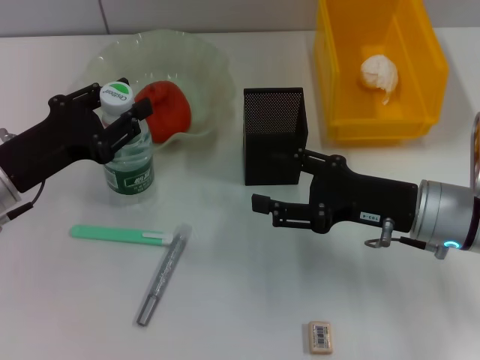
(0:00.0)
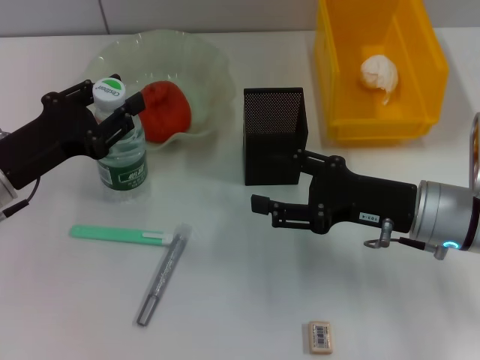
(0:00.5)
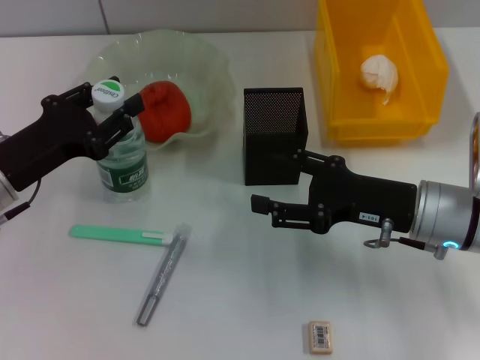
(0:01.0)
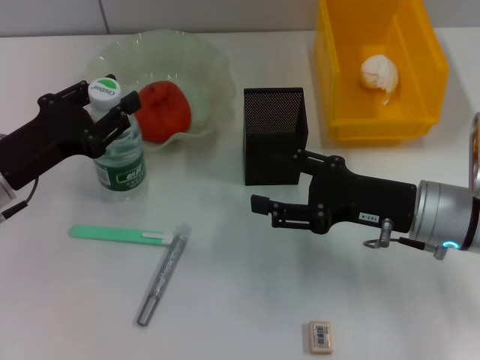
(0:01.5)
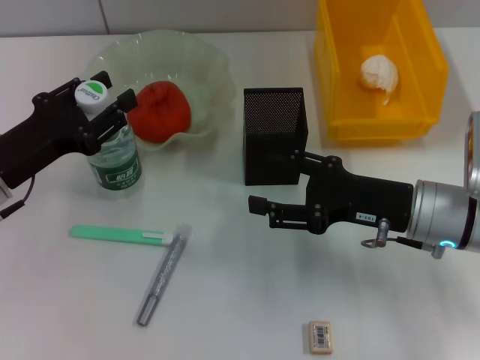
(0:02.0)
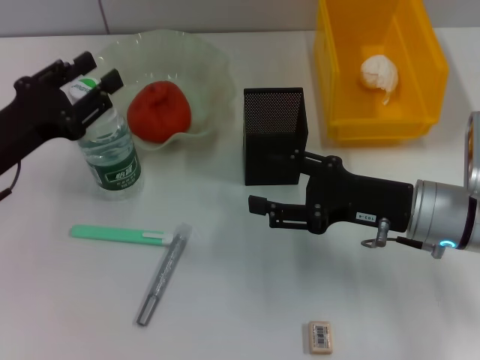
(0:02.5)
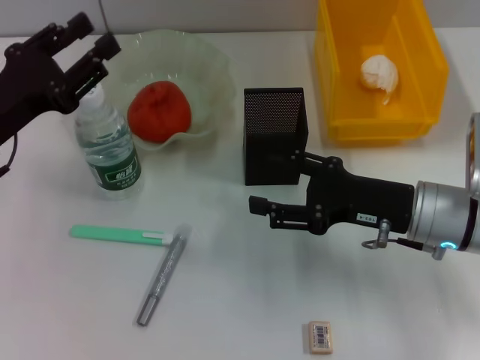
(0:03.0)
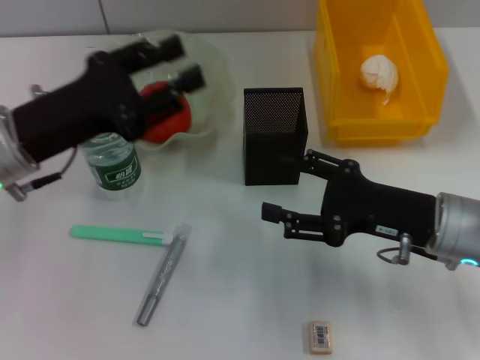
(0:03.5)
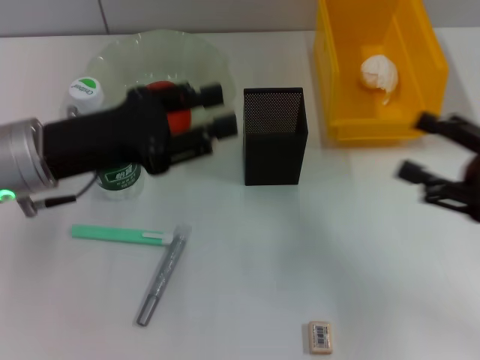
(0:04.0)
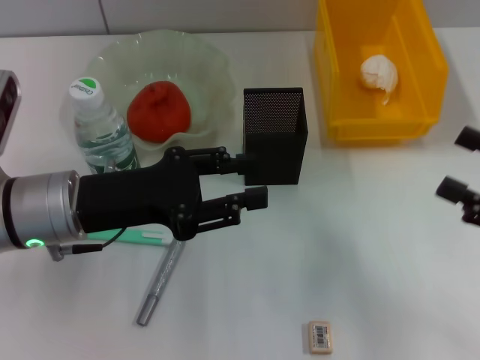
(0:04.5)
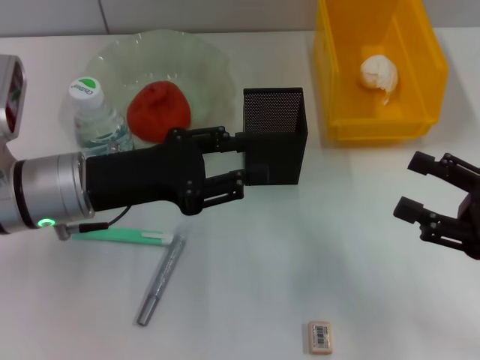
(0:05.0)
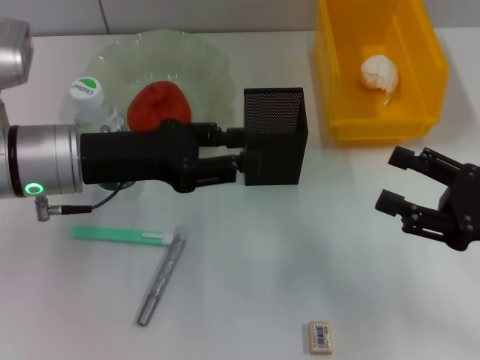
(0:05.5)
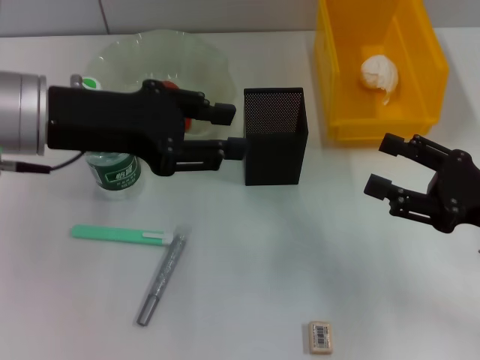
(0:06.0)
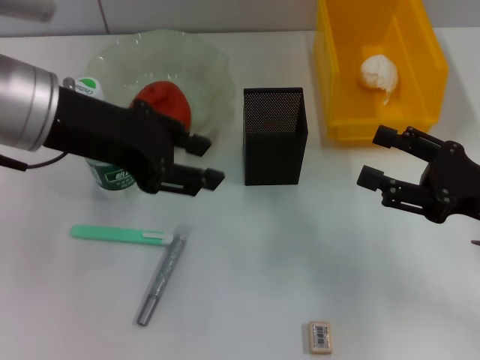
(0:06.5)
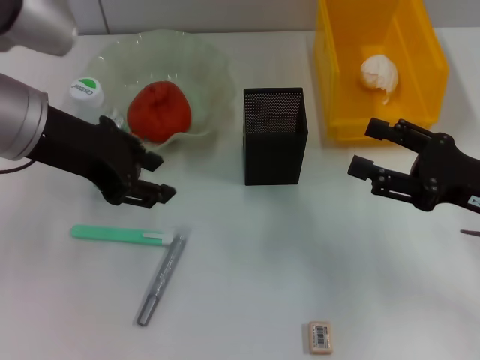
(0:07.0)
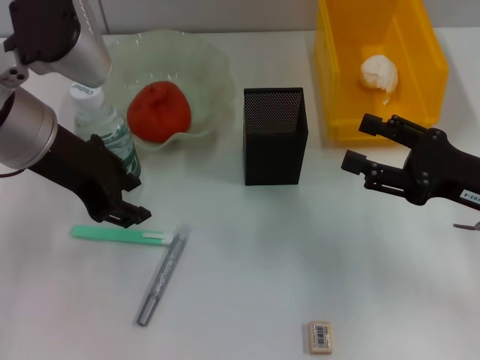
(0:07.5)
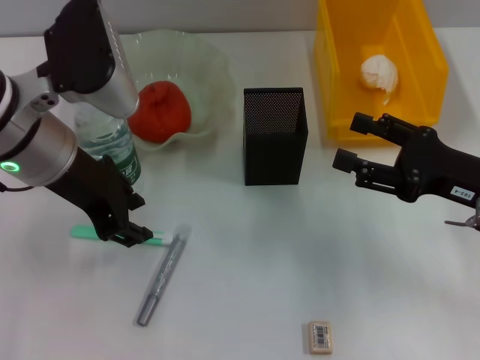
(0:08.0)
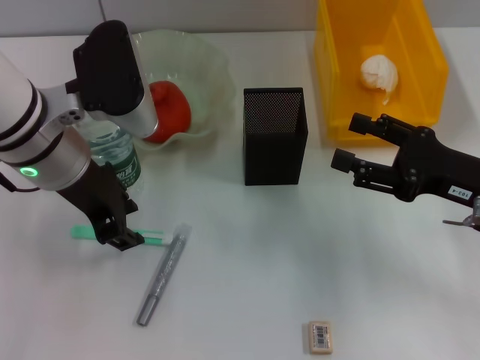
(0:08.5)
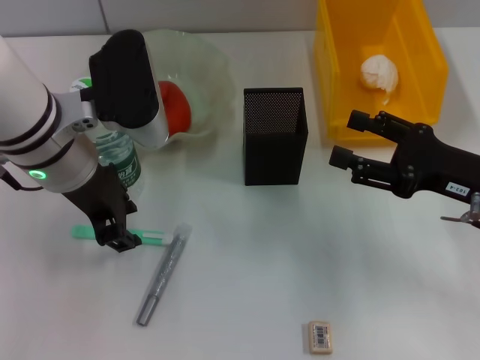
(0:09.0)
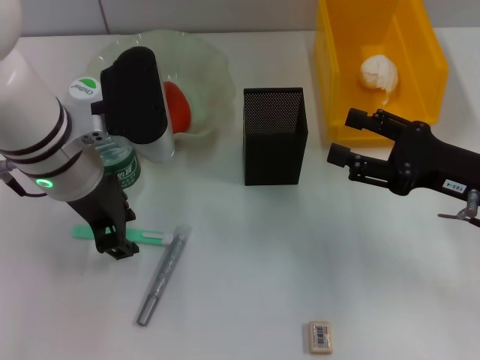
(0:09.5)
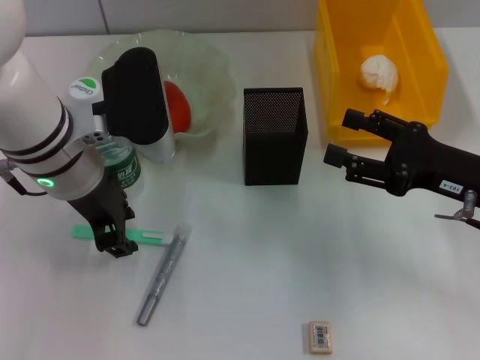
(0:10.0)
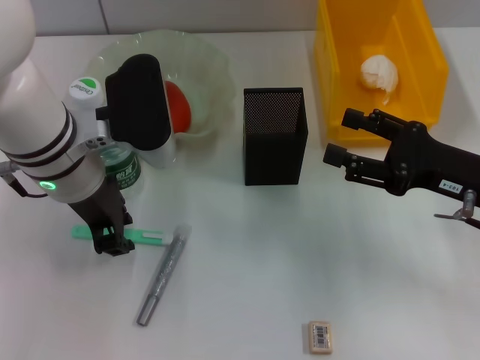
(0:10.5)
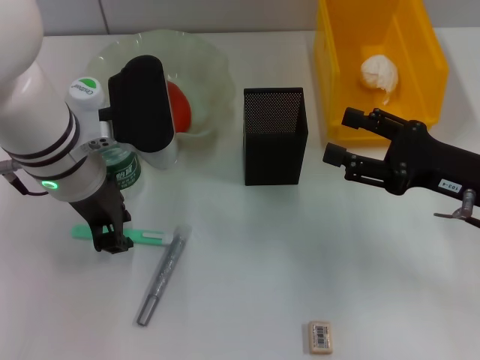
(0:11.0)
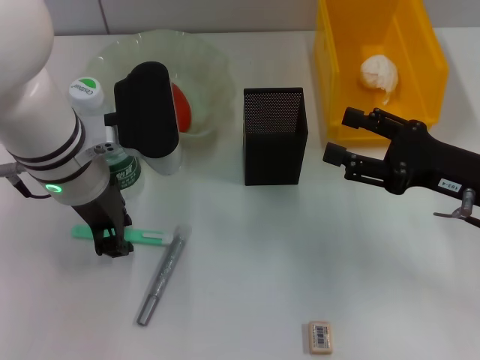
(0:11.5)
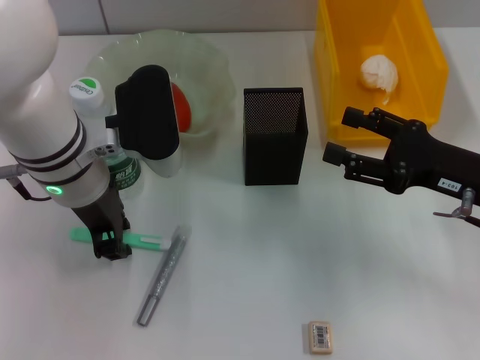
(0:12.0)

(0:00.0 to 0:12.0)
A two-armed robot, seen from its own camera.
Step, 0:00.0 - 0:02.0: Place the water bottle on the table with the left hand.
0:00.0 - 0:02.0: The two grippers keep their place.
0:02.0 - 0:04.0: The left gripper travels upward and to the right by some 10 cm. The right gripper goes approximately 10 cm to the right and backward.
0:04.0 - 0:06.0: The left gripper heads upward, covering some 5 cm.
0:08.0 - 0:10.0: There are only small adjustments of the grippers.
0:10.0 - 0:12.0: Both grippers stay put.

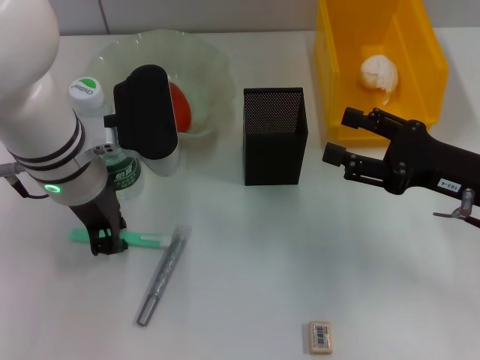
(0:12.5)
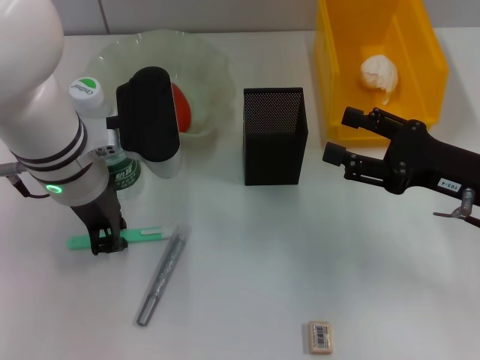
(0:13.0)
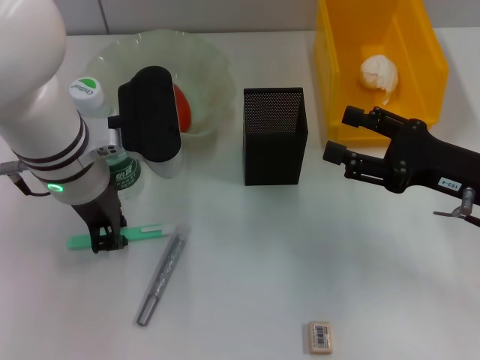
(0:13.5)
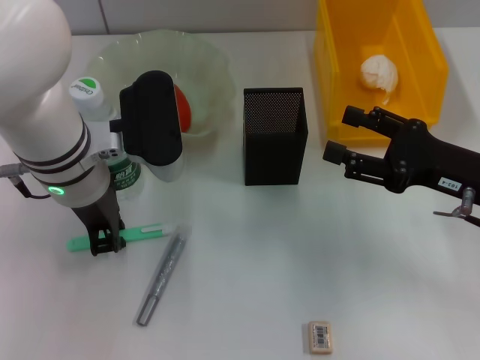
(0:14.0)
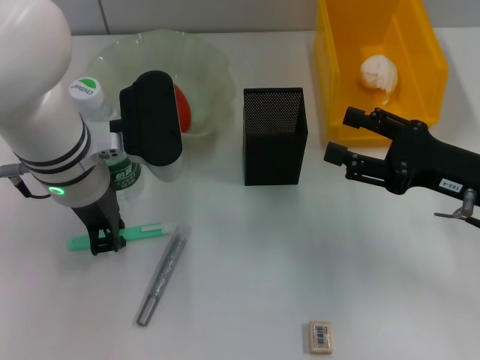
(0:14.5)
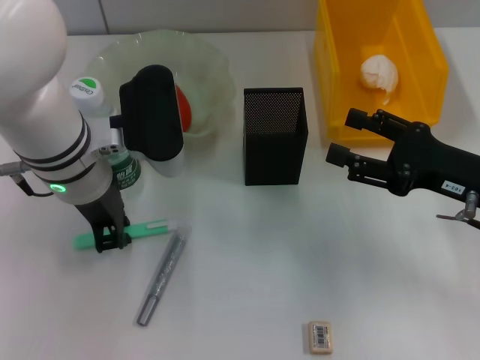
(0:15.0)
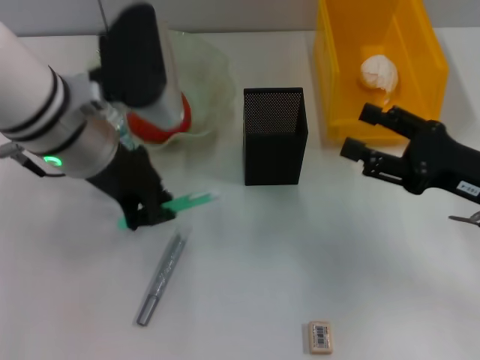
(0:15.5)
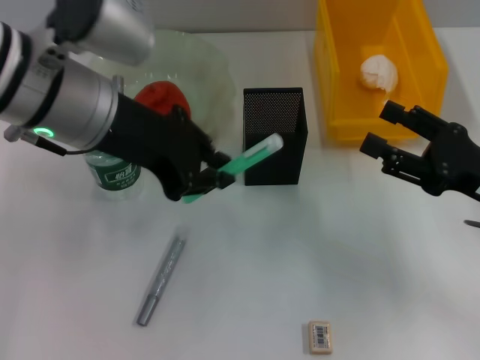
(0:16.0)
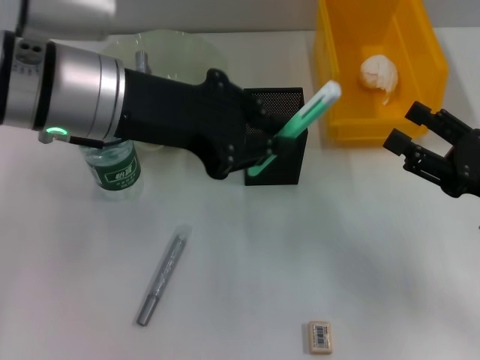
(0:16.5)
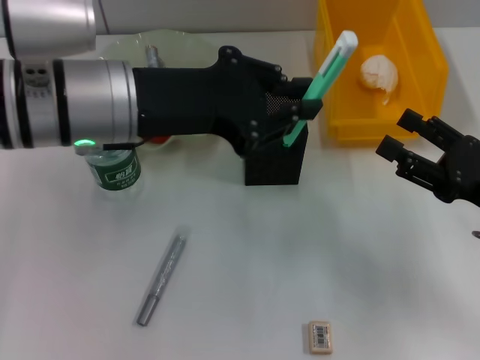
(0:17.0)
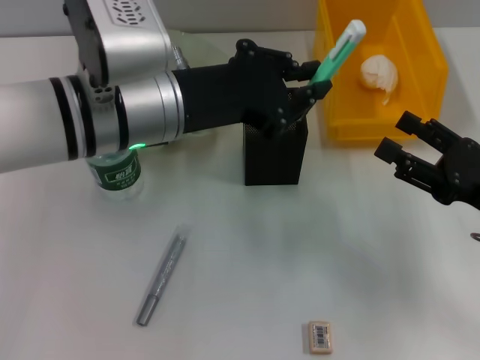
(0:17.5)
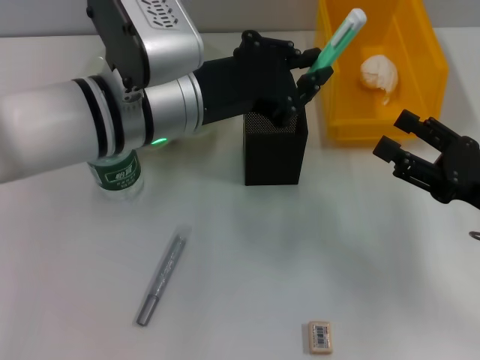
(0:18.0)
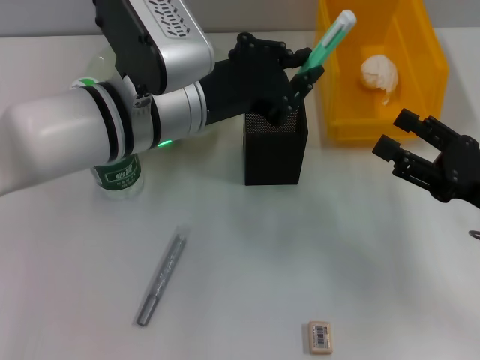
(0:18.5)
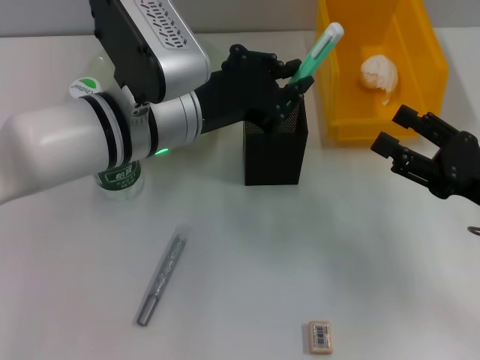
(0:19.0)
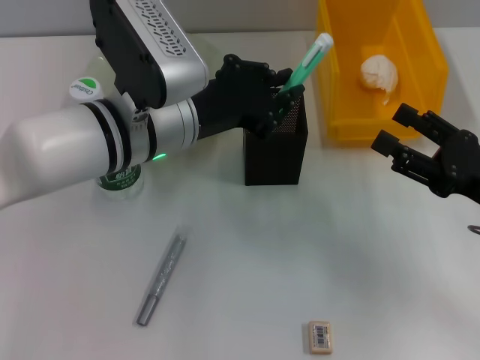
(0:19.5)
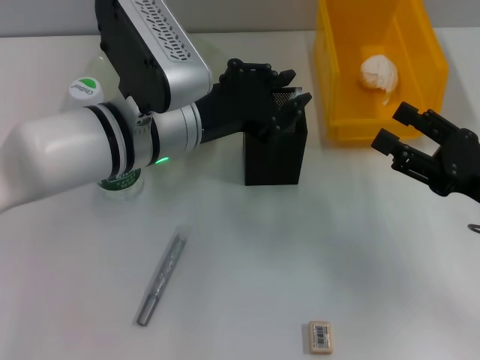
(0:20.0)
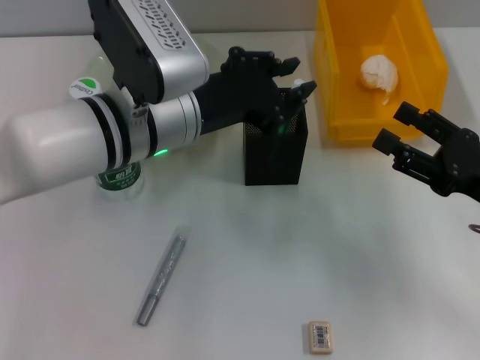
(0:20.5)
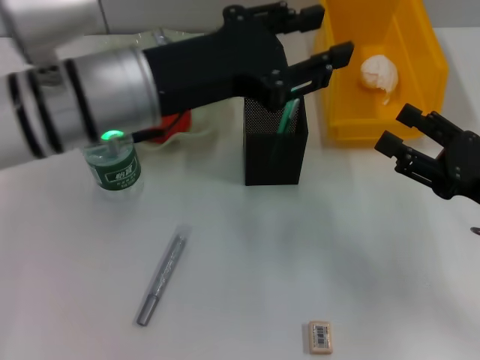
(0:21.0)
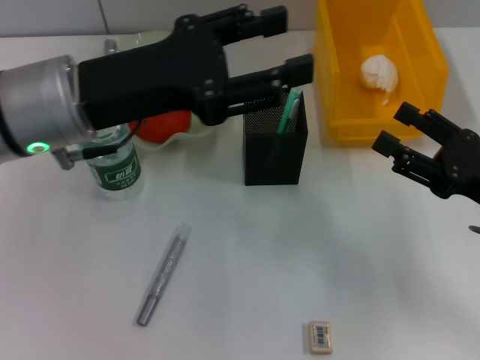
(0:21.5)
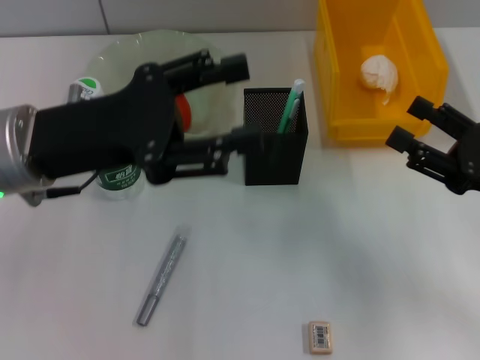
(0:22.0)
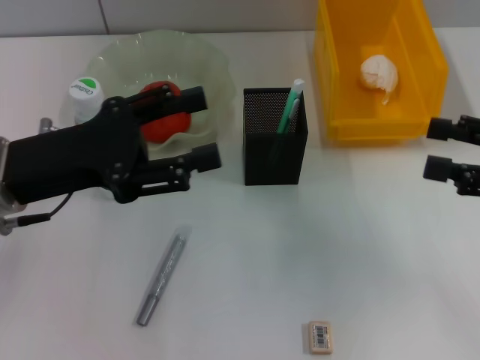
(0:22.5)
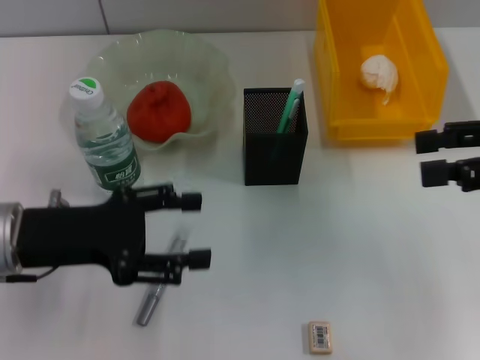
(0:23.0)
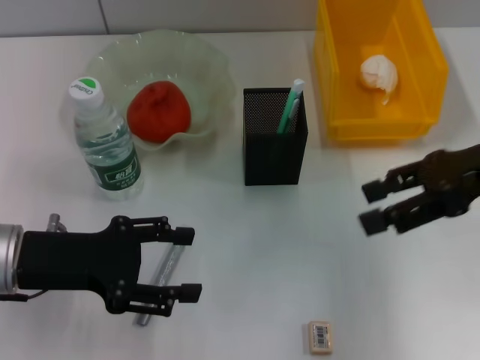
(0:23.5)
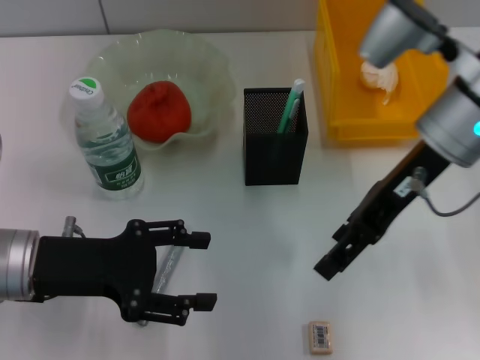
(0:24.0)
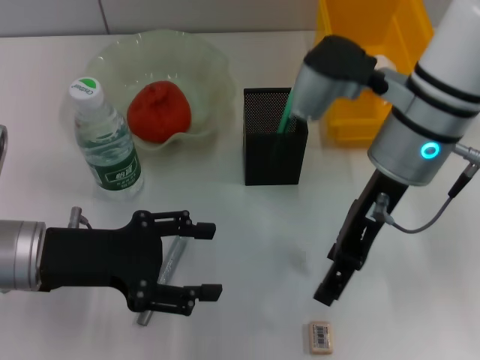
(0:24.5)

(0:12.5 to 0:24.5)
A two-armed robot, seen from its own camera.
Step, 0:12.5 - 0:15.0: Grab the blue utility knife with the right hand.
Step, 0:15.5 - 0:20.0: Place the blue utility knife into the pen holder with the right hand.
0:12.5 - 0:14.5: The two grippers keep their place.
0:14.5 - 0:16.5: The right gripper ends up some 5 cm from where it was. Meanwhile the left gripper shifts approximately 10 cm upward.
0:16.5 - 0:18.5: The left gripper heads downward and to the right, covering approximately 10 cm.
0:18.5 - 0:20.5: The grippers make only small movements.
0:20.5 - 0:22.5: The left gripper heads to the left, covering about 15 cm, and opens up. The right gripper is displaced upward by roughly 10 cm.
0:22.5 - 0:24.5: The left gripper ends up approximately 5 cm from where it was. The right gripper is displaced to the left by some 20 cm.

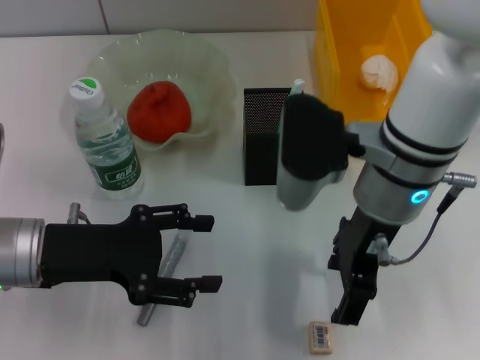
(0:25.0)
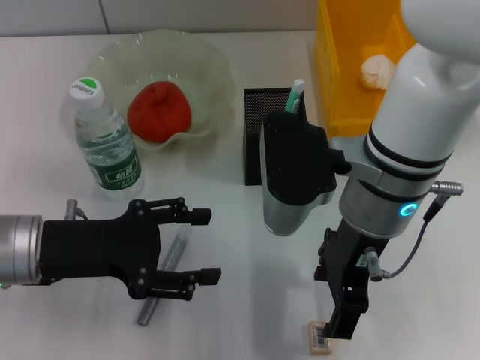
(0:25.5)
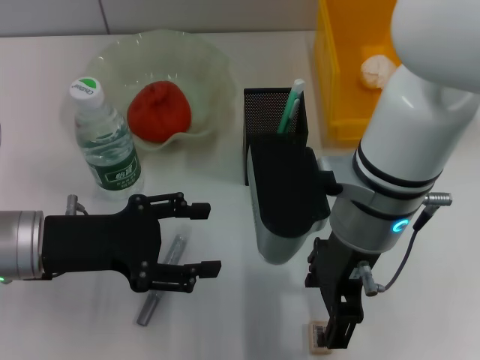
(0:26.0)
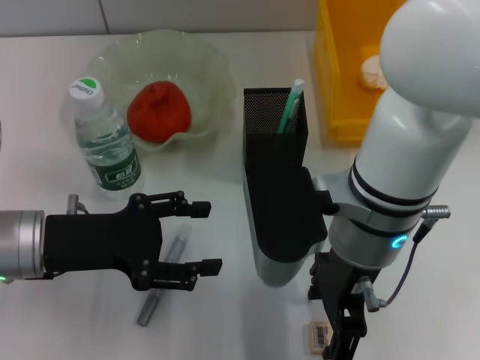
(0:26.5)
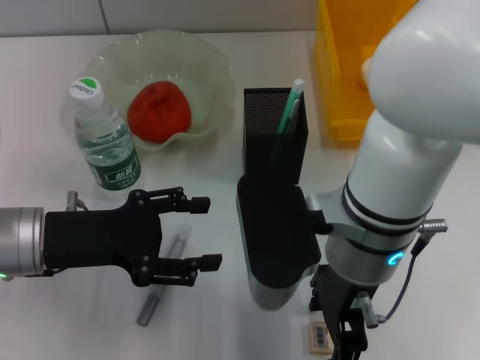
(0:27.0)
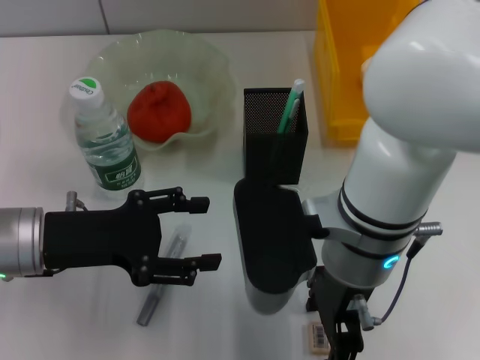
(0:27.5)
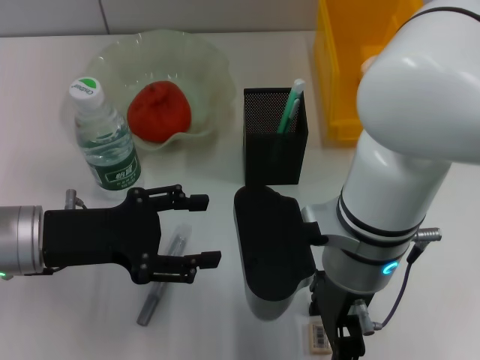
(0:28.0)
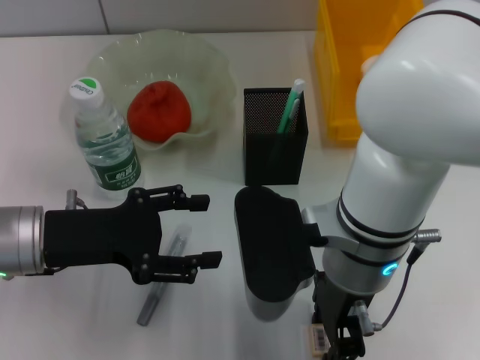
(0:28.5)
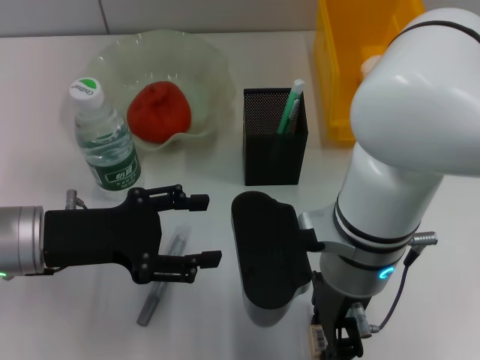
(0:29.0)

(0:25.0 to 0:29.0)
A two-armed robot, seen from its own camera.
0:25.0 - 0:27.0: The right gripper ends up about 5 cm from where it was.
0:27.0 - 0:29.0: The right gripper closes up.
